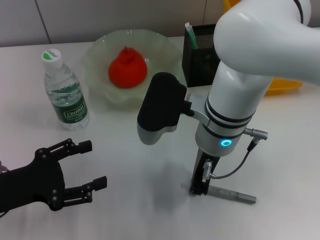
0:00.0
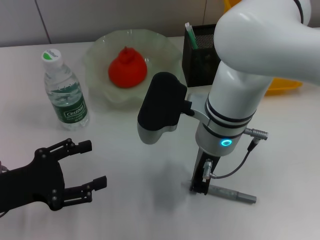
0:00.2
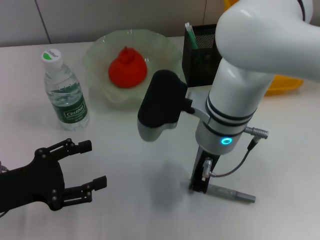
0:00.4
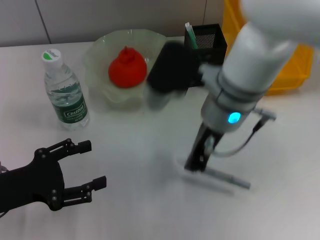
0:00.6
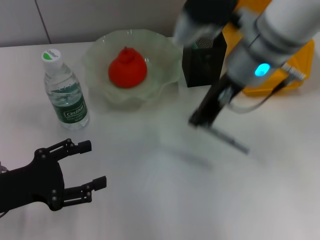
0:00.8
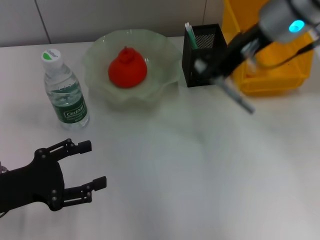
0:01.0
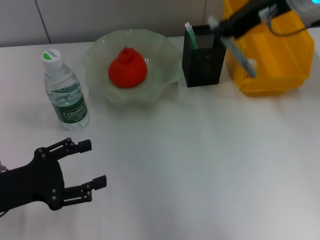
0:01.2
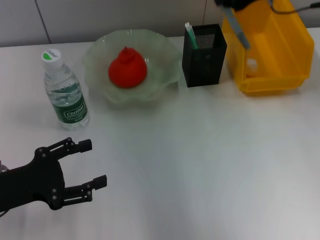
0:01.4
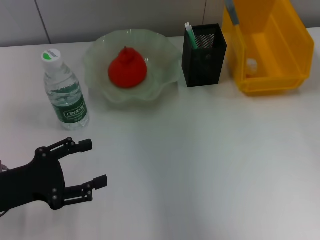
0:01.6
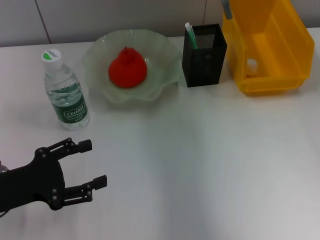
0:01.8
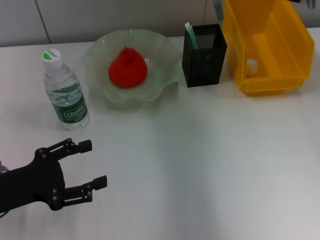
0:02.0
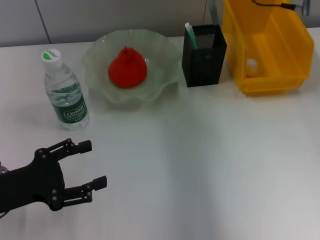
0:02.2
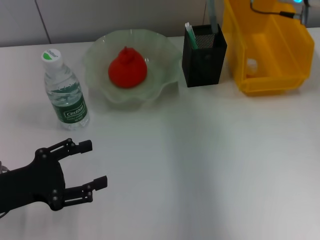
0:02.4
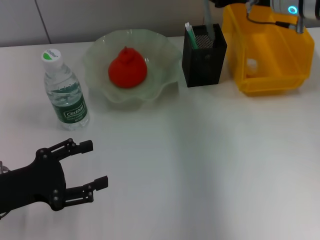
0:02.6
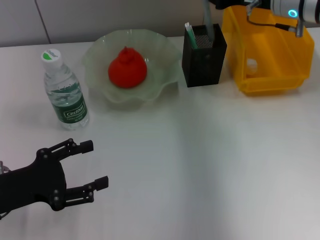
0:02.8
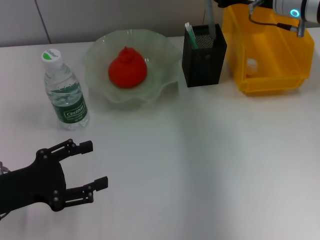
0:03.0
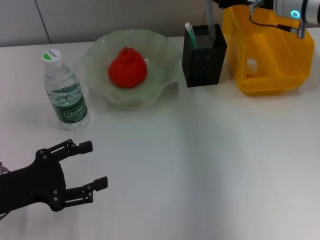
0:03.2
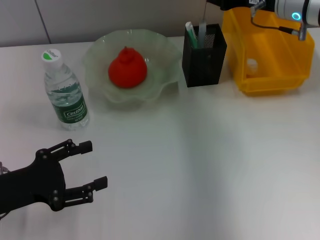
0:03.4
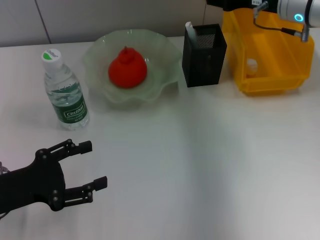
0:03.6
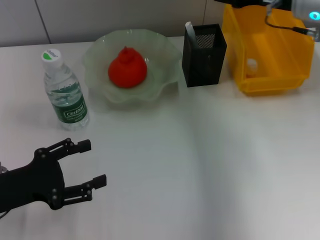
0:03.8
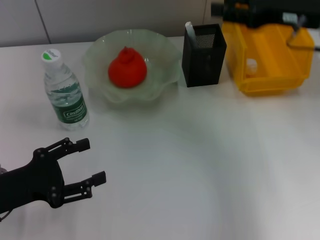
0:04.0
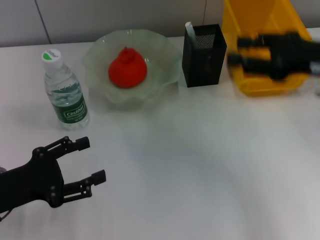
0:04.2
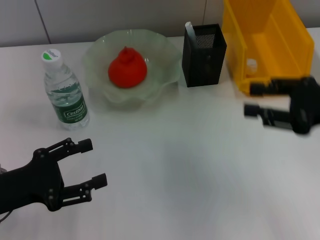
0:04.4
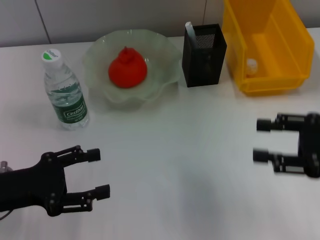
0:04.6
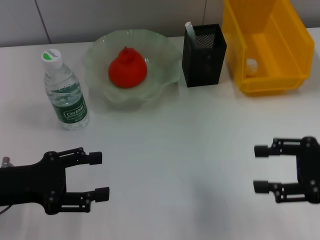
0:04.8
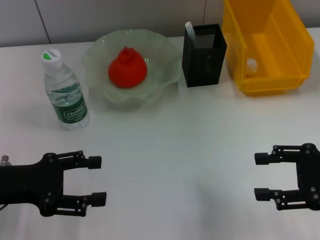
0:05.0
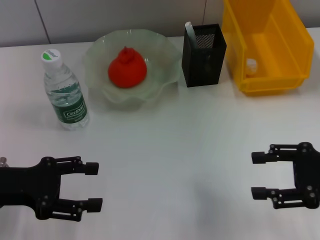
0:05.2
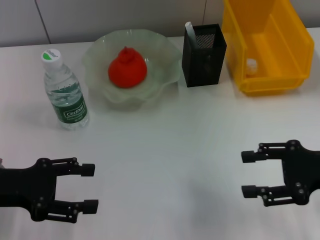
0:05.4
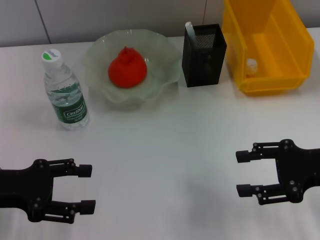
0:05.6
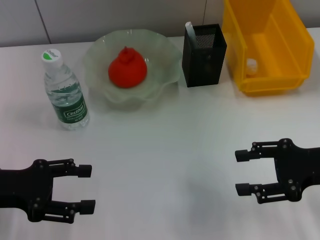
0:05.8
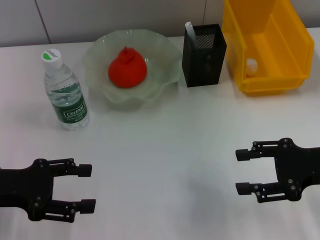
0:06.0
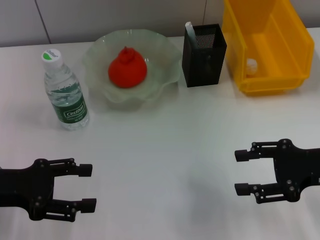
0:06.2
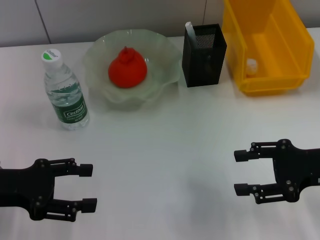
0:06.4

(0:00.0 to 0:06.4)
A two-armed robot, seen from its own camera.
Step, 0:00.4 - 0:03.6: Place the gray glue into the pen holder with the right hand.
0:00.0 - 0:01.6: The right gripper heads to the right, upward and forward, covering some 25 cm, and closes up.
0:01.6 - 0:03.2: The right gripper goes about 10 cm downward.
0:03.2 - 0:04.8: The right gripper is displaced backward by some 25 cm, and opens its fingers.
0:04.8 - 0:06.4: The grippers stay close to where they were, moving slightly.

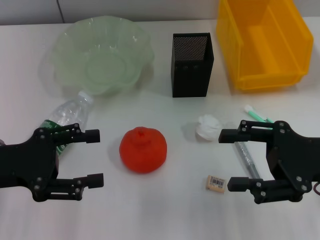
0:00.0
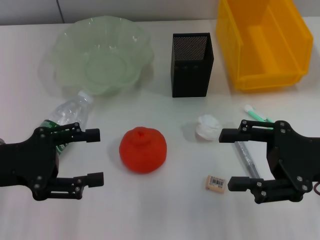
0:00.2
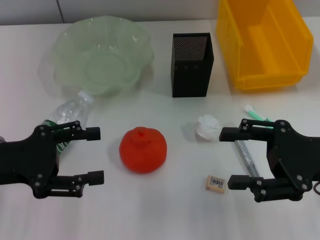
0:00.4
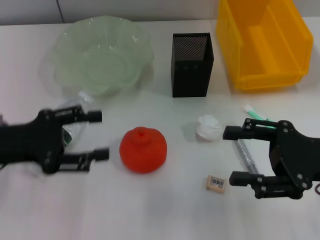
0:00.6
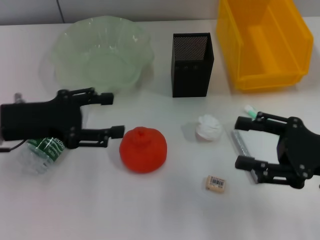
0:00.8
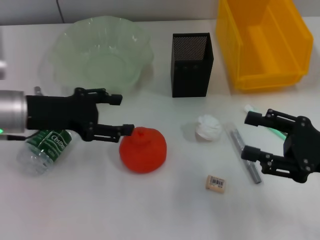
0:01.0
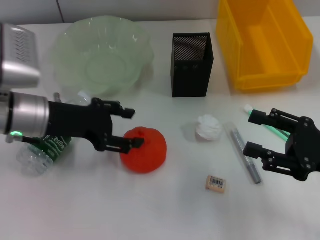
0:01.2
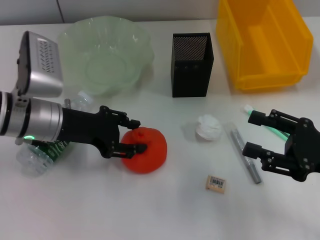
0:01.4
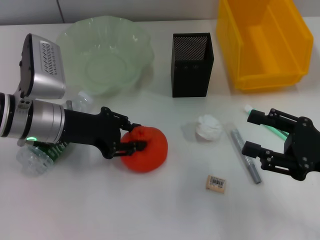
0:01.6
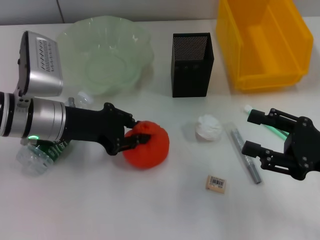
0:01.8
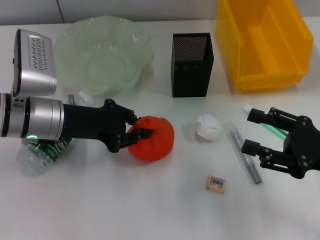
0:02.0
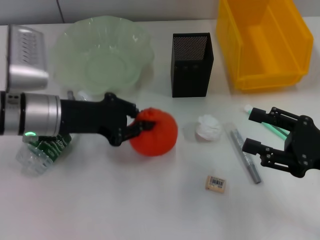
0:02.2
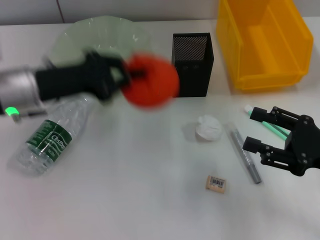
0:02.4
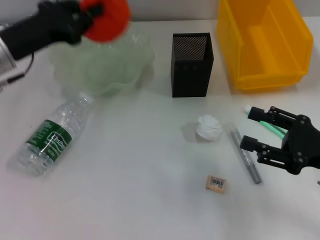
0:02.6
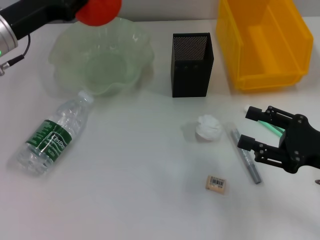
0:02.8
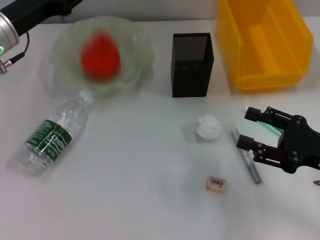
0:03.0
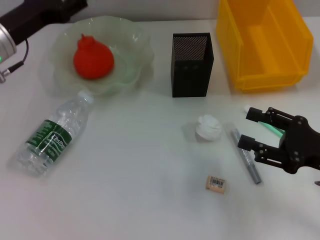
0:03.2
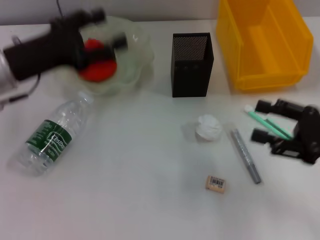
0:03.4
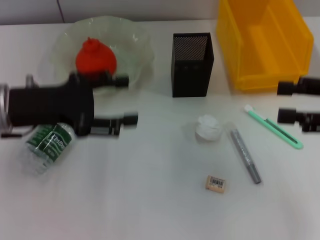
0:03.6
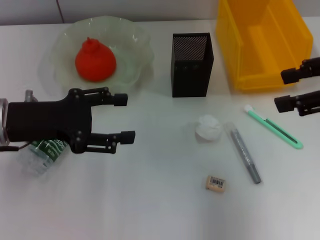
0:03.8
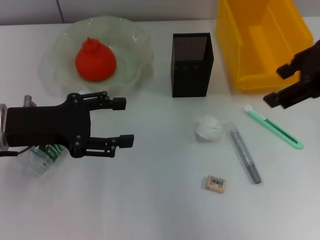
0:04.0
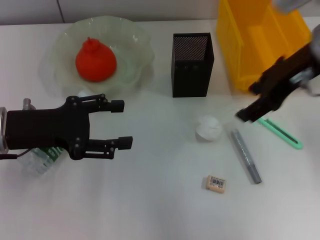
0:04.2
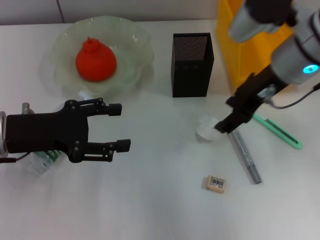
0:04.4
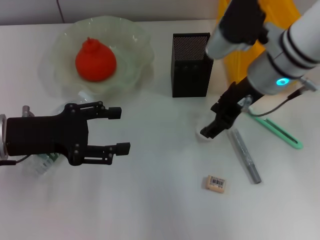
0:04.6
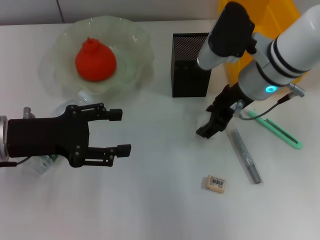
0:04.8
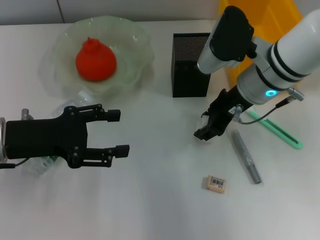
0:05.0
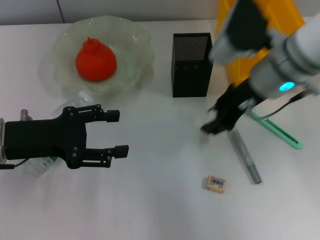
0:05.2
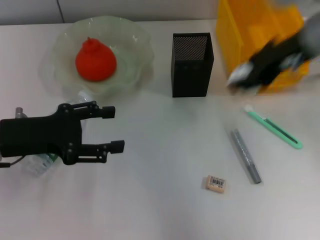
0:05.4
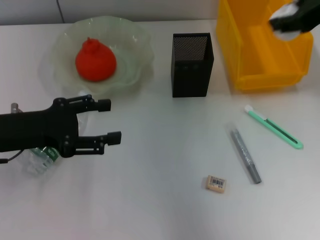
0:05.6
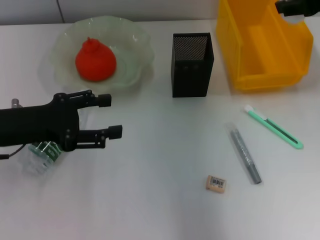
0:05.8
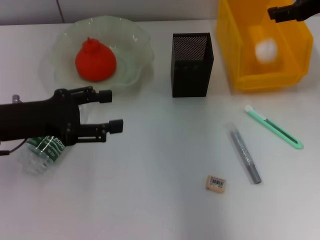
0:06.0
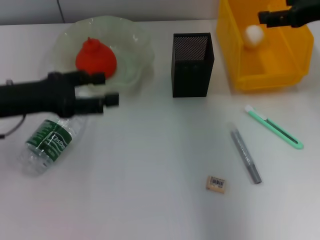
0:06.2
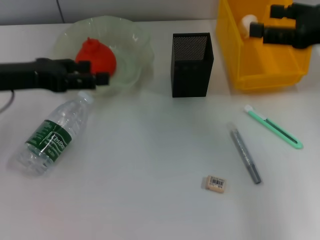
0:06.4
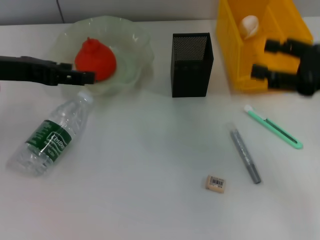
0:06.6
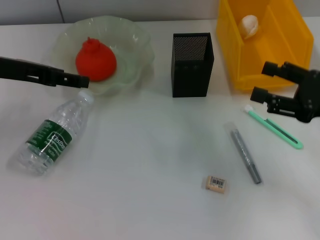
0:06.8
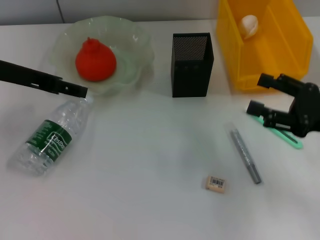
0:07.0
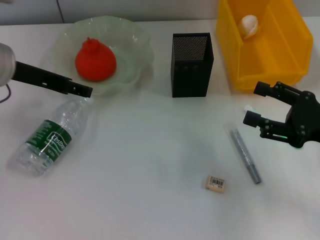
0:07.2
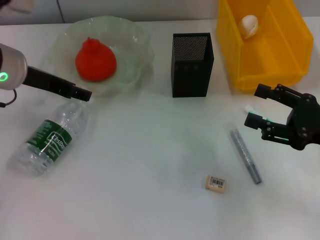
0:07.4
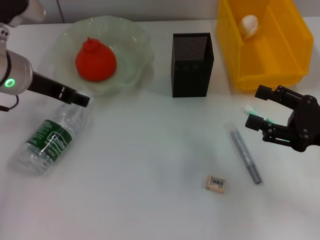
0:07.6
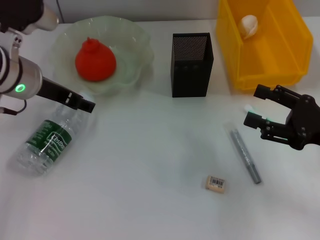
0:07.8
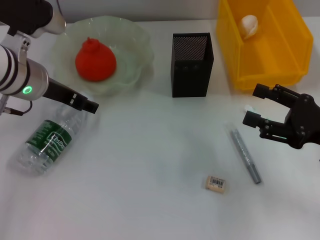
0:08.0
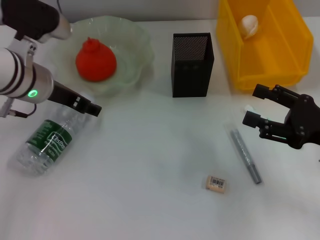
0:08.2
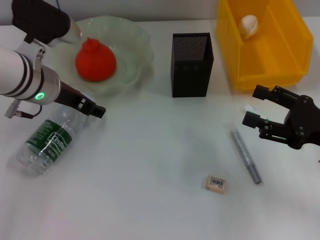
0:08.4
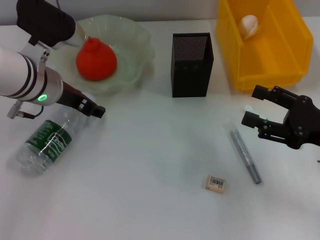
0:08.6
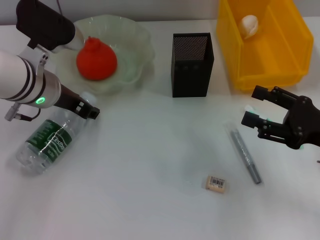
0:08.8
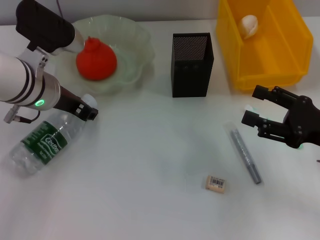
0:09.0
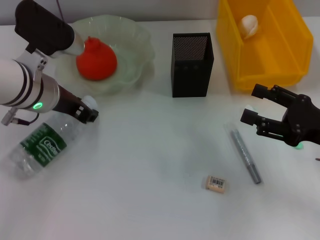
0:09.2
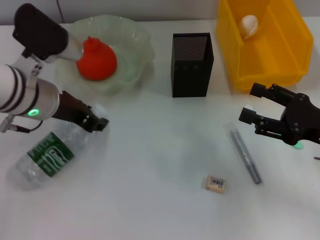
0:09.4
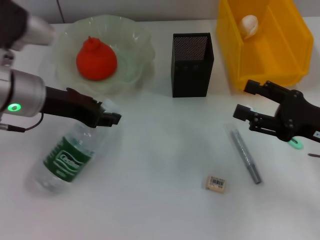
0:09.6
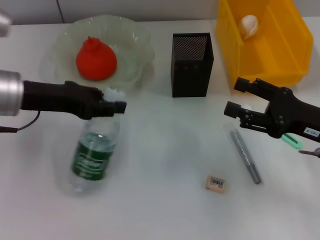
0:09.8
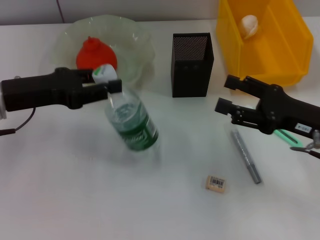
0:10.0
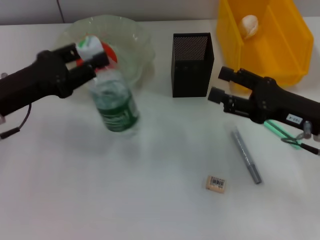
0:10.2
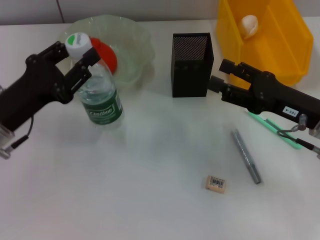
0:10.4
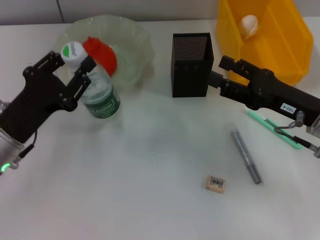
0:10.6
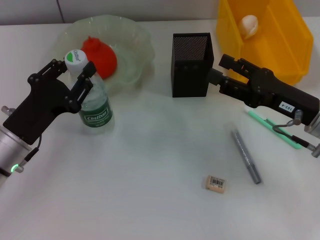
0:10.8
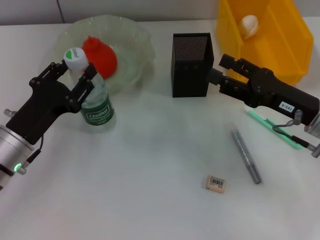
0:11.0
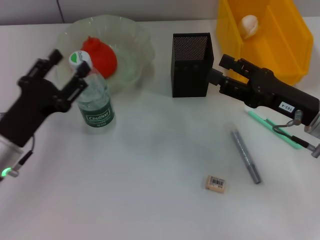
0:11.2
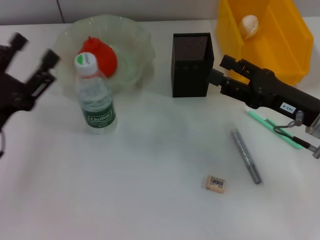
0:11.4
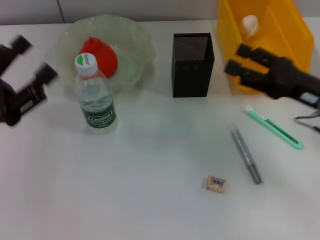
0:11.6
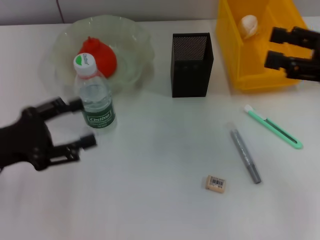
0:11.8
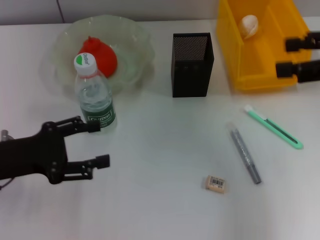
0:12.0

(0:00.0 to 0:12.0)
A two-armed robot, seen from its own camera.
Step, 0:00.0 - 0:01.6: Grab the orange with the left hand.
Step, 0:01.8 - 0:03.0: Place the orange into the fruit bowl with the left hand.
Step, 0:03.4 - 0:04.8: Grab the paper ball with the right hand.
Step, 0:05.0 - 0:06.2: Place the paper ball into the trash can with the right hand.
Step, 0:06.4 - 0:08.6: Grab the water bottle with the left hand.
Step, 0:08.8 - 0:11.0: Place the water bottle on the table with the left hand.
0:00.0 - 0:01.6: The left gripper moves forward and to the right, some 15 cm.
0:01.6 - 0:03.0: The left gripper shifts roughly 10 cm forward and to the left, and closes.
0:03.0 - 0:04.4: The left gripper travels backward by approximately 10 cm, and opens up; the right gripper is displaced forward, to the left and upward by roughly 20 cm.
0:04.4 - 0:06.0: The right gripper heads to the right, covering some 10 cm, and moves approximately 10 cm upward and comes back.
0:06.0 - 0:07.6: The left gripper moves forward and to the right, roughly 10 cm. The right gripper heads downward and backward, covering approximately 20 cm.
0:07.6 - 0:09.0: The left gripper closes.
0:09.0 - 0:10.4: The left gripper shifts approximately 10 cm backward and to the left. Meanwhile the right gripper ends up roughly 5 cm from where it was.
0:10.4 - 0:12.0: The left gripper opens up; the right gripper goes roughly 15 cm upward.

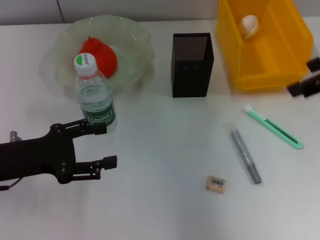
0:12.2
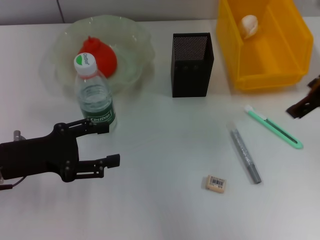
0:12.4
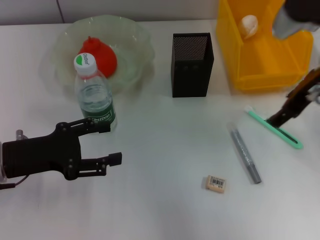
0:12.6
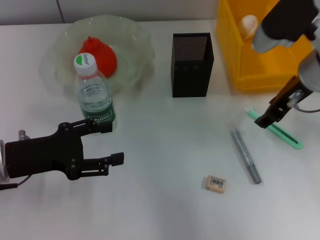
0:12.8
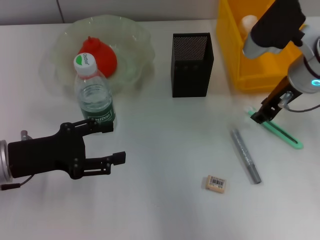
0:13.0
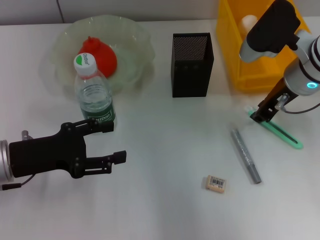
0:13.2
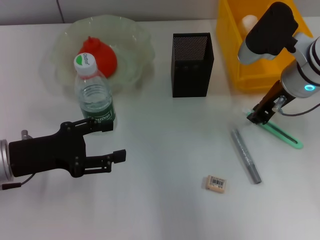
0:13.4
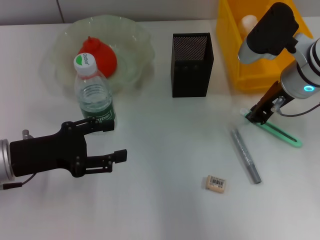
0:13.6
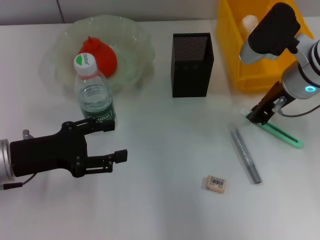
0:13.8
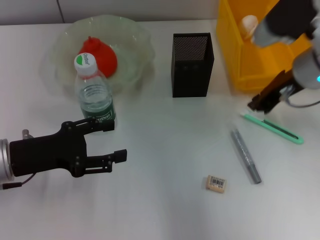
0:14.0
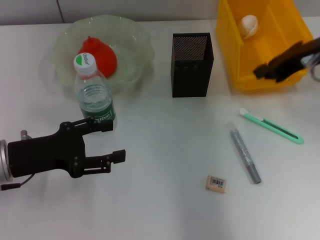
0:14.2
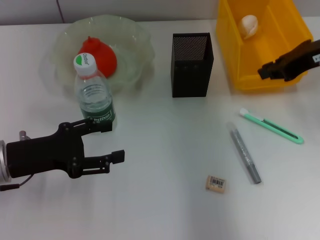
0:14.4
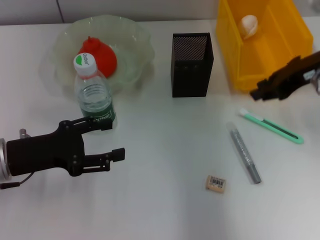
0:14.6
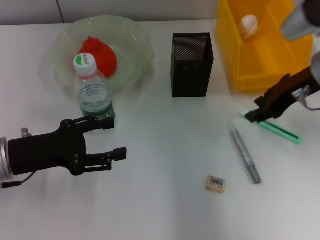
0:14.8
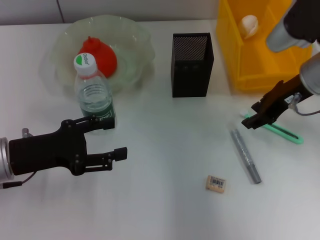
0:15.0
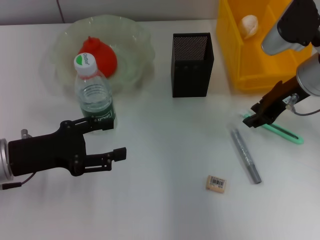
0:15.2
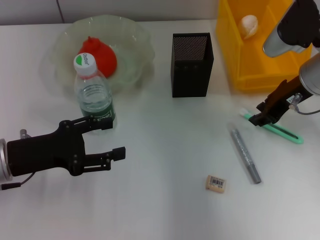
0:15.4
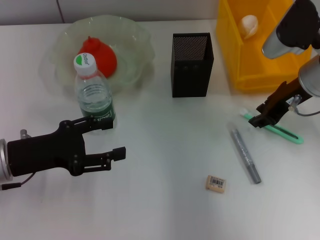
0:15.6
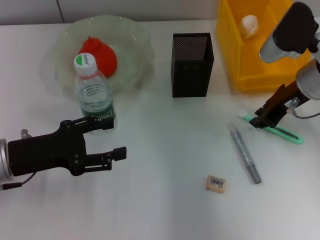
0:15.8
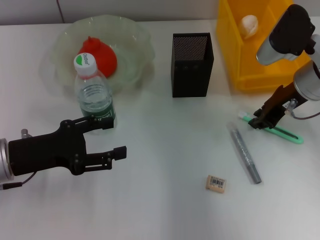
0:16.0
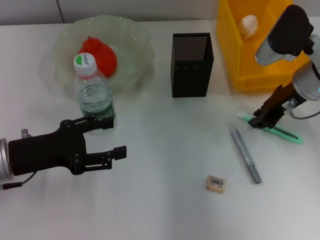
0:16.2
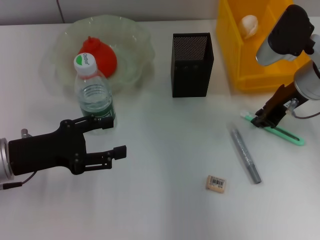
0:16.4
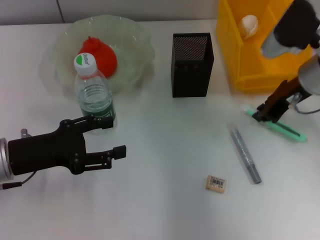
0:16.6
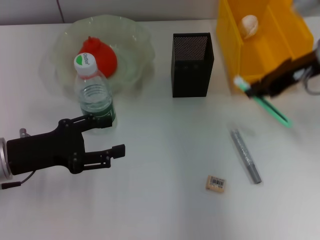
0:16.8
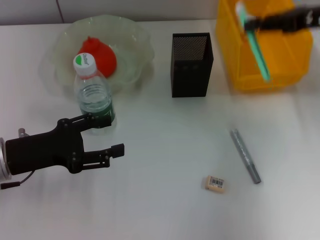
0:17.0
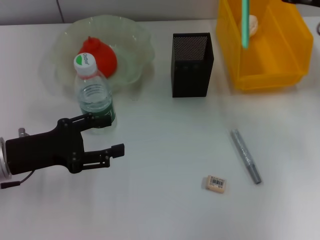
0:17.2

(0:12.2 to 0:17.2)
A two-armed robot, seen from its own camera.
Step, 0:12.2 - 0:16.4: Grab the blue utility knife with the right hand.
0:12.2 - 0:13.8: The right gripper is displaced downward, to the left and forward by roughly 15 cm, and closes up.
0:13.8 - 0:15.6: The right gripper opens its fingers.
0:15.6 - 0:17.2: The right gripper moves to the right and upward, roughly 10 cm.
